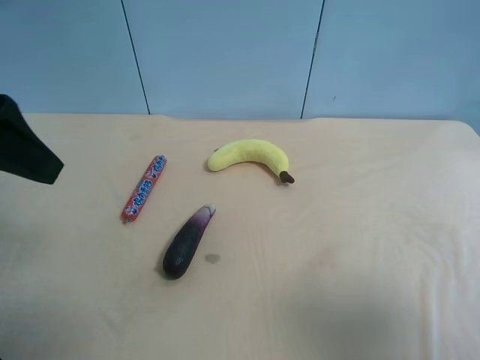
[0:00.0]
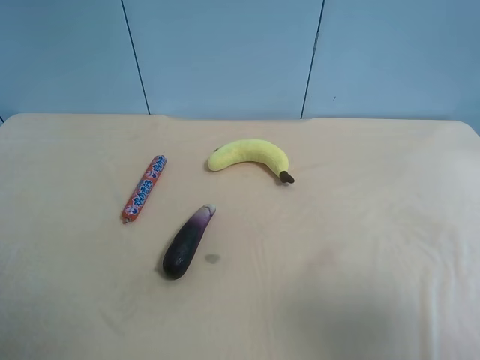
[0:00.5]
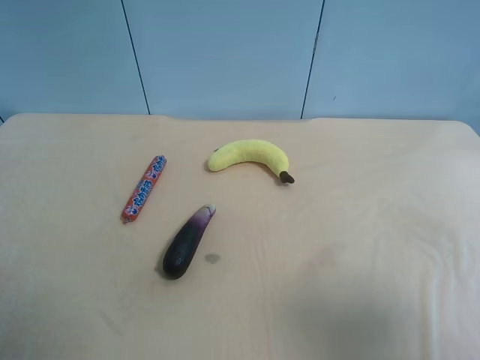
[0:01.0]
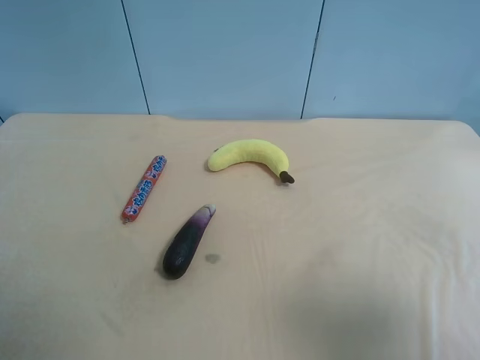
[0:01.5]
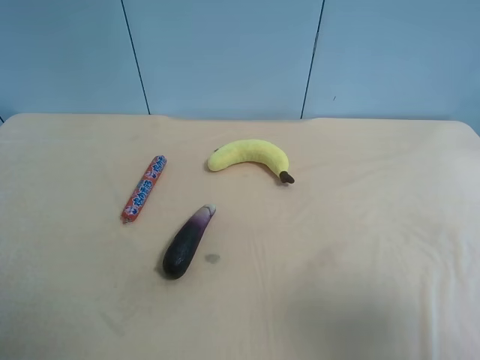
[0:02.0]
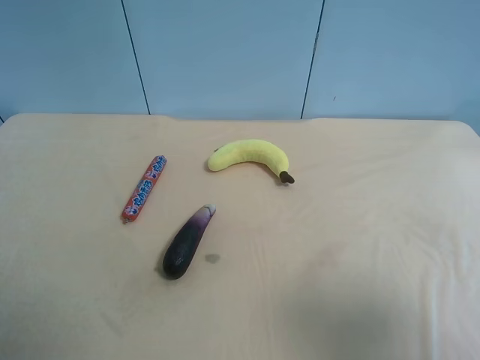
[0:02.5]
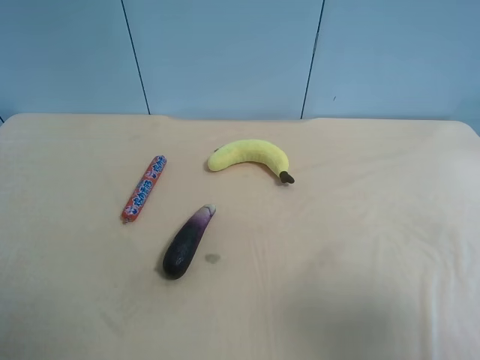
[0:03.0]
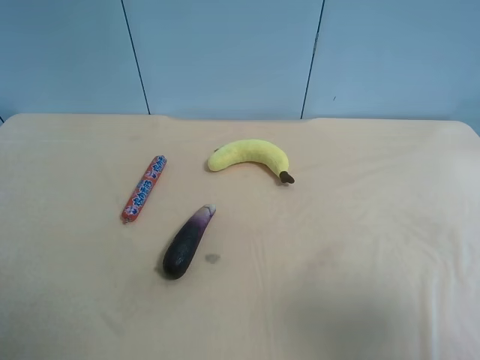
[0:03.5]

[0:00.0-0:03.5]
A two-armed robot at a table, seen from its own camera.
Task of the whole recording: use the right gripper to pick up the item and transfer it from the right gripper to the left gripper.
0:00.0 to 0:02.0: The left gripper moves backward and downward, roughly 15 cm.
0:02.0 to 0:03.5: The two grippers keep their place.
